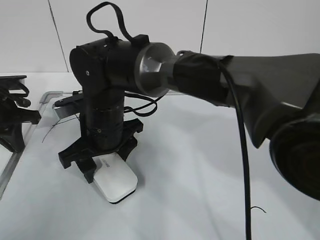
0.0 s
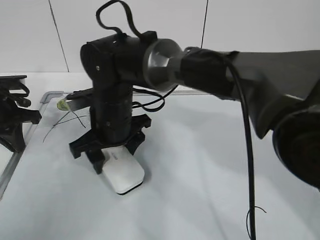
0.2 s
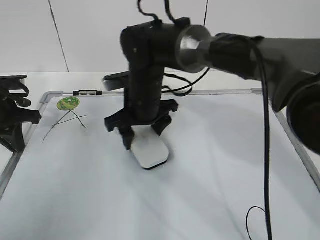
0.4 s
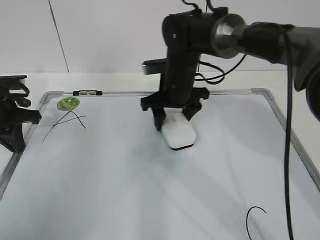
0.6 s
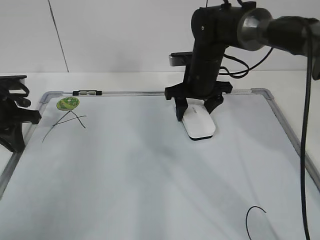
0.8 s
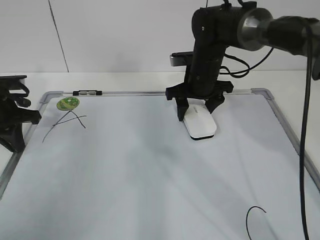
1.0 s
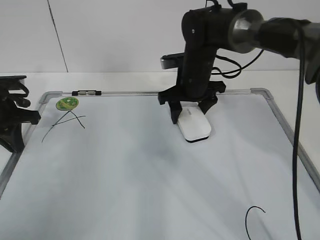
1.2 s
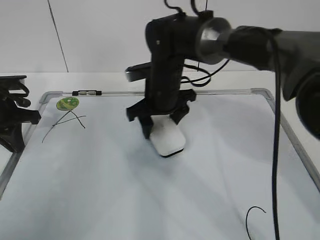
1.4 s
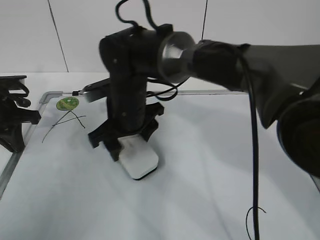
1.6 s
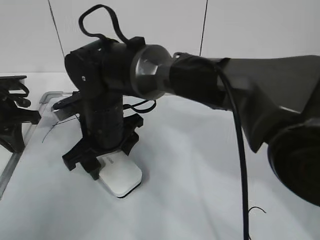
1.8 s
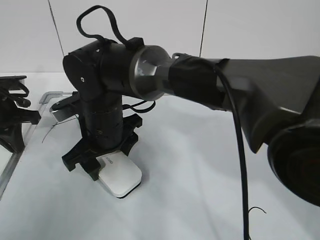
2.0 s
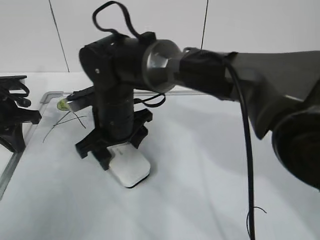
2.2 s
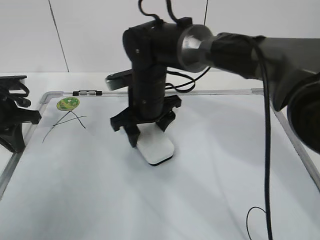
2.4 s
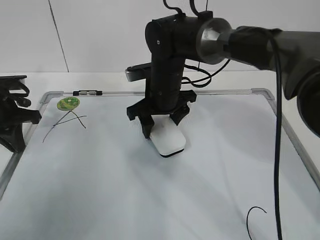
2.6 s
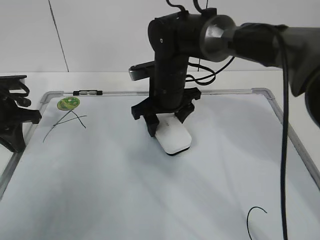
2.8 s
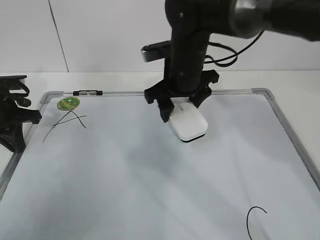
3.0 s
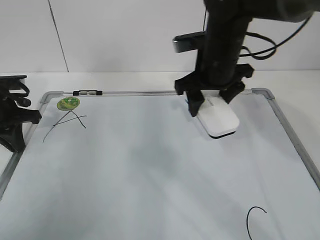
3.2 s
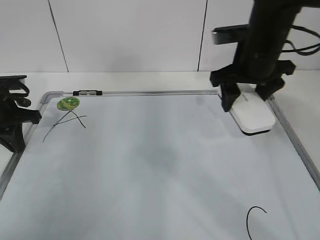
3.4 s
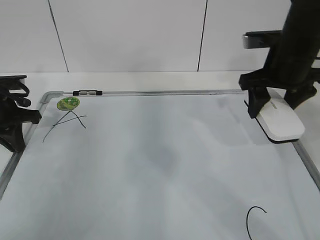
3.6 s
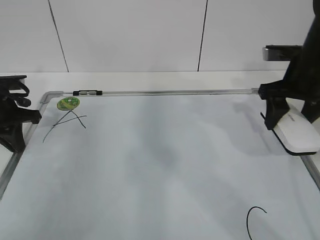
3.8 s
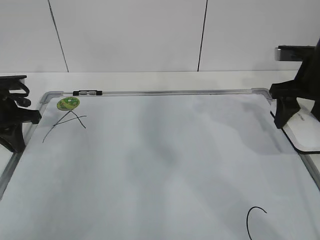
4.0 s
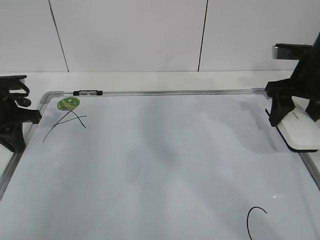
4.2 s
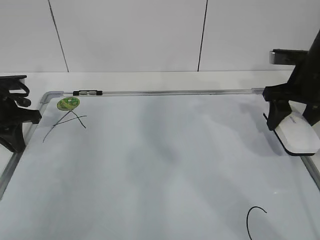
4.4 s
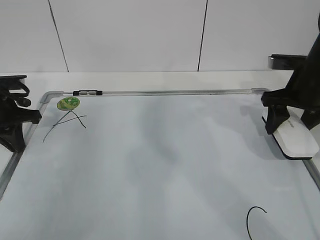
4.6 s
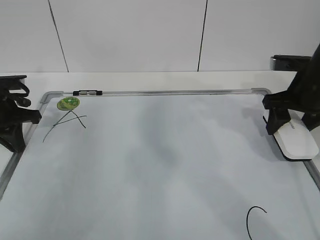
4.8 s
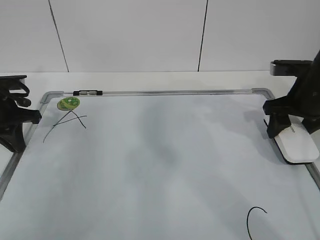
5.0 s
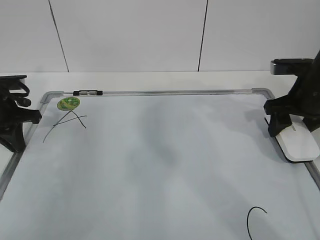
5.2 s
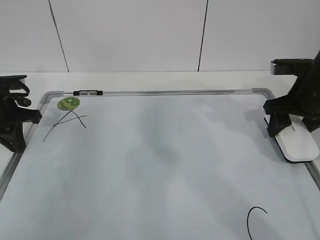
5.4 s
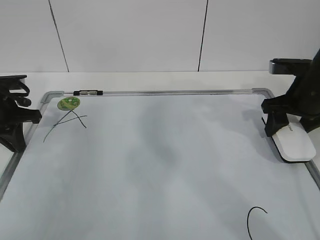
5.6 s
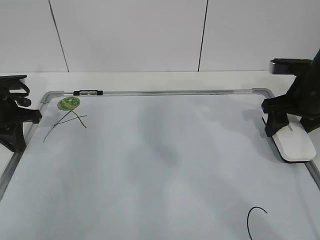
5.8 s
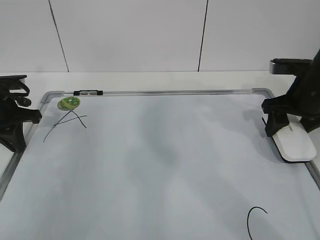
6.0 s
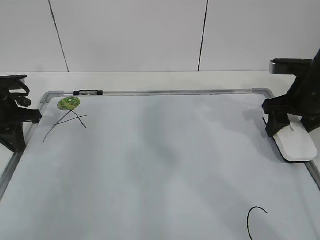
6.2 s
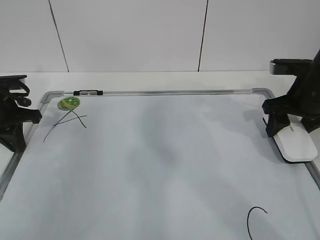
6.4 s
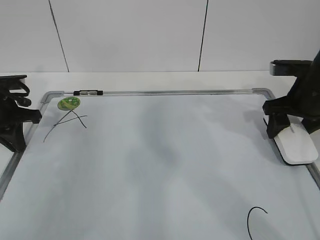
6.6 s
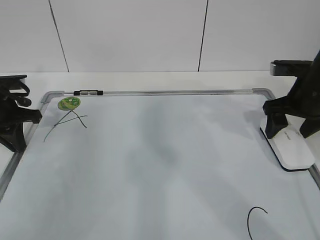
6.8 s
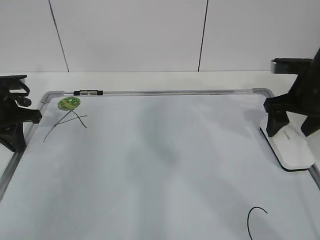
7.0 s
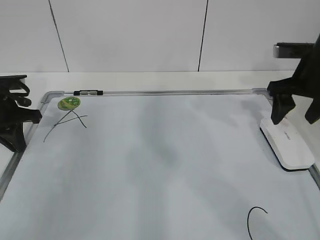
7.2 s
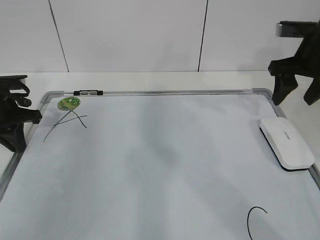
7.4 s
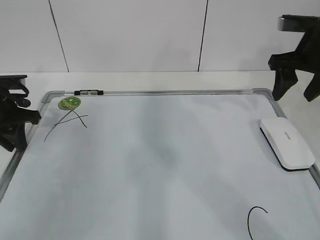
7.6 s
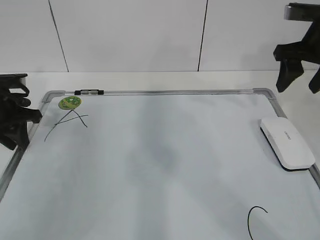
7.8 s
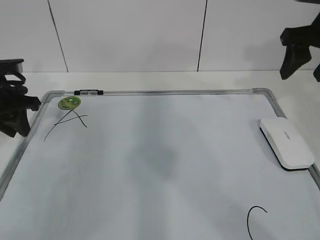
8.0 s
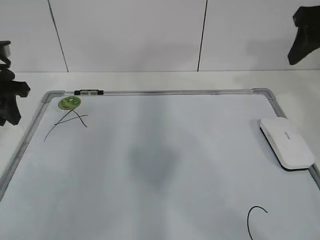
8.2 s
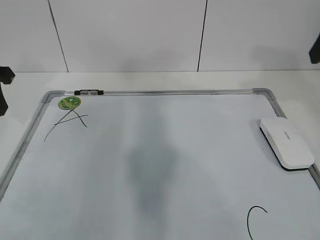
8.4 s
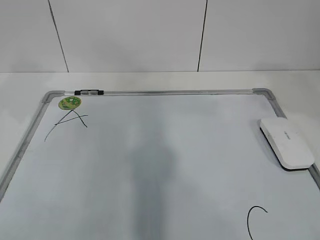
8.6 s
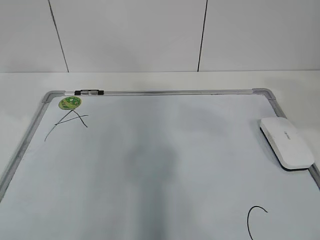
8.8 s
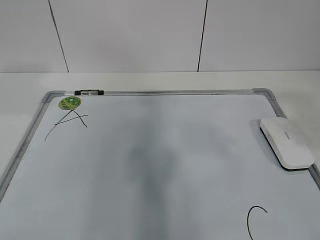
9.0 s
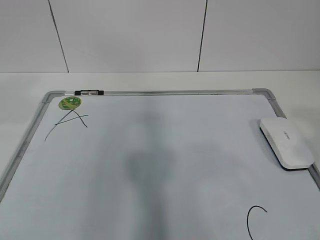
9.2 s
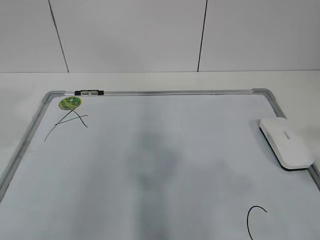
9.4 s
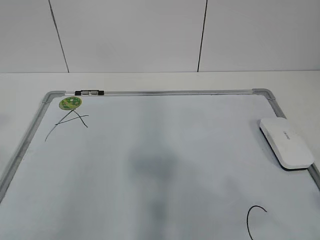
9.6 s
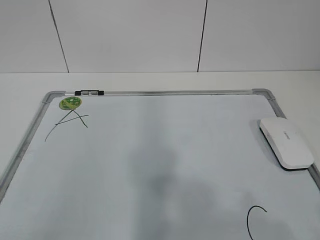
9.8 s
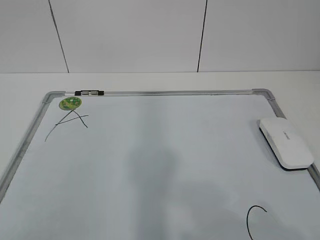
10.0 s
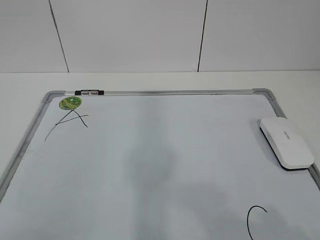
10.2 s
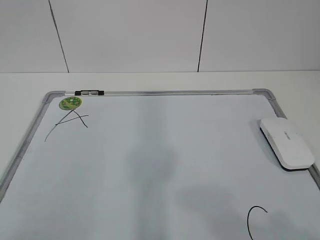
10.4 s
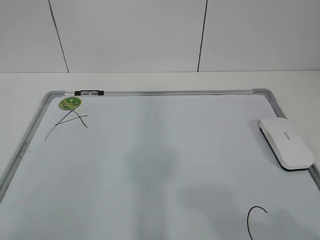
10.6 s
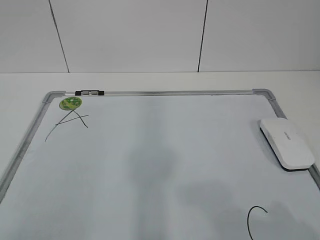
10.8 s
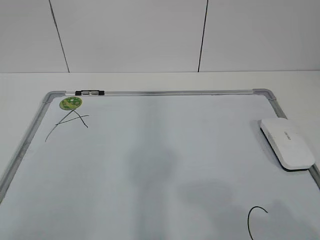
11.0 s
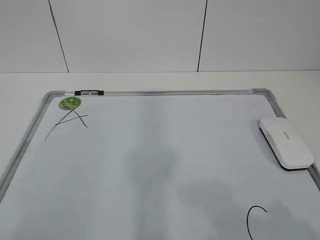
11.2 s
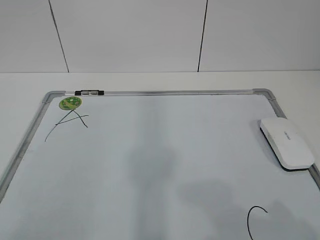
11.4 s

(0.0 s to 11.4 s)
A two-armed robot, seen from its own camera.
Task of the whole recording: pick up the eraser on the blackboard and erase the letter "B".
Step, 0.6 s - 3.6 s: Put down the eraser with your right hand.
0.0 s - 1.4 s: The right gripper travels to the right and forward by approximately 10 cm.
1.4 s - 2.8 s: The right gripper travels to the left and back again, about 10 cm each way.
2.8 s - 4.2 s: The right gripper travels to the right by roughly 25 cm.
4.2 s - 5.6 s: The grippers stay close to where they were, moving slightly.
5.6 s - 7.2 s: The right gripper opens its fingers.
7.2 s - 8.6 s: The left gripper goes roughly 15 cm upward and backward, and opens. Meanwhile the right gripper is displaced backward and upward by approximately 20 cm, and closes up.
8.6 s - 10.0 s: The right gripper is displaced backward by roughly 25 cm.
